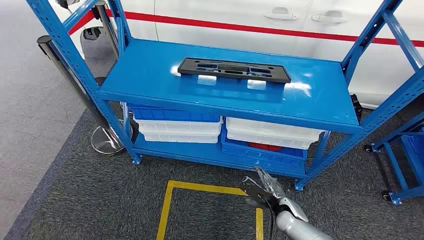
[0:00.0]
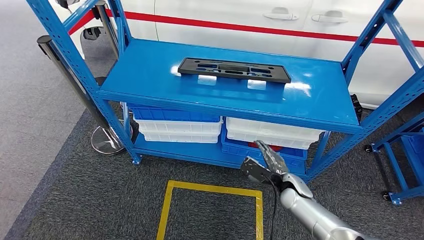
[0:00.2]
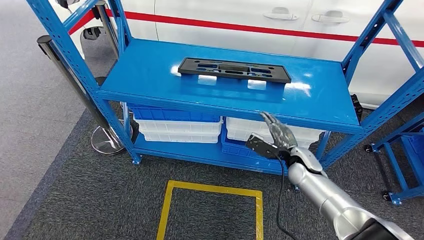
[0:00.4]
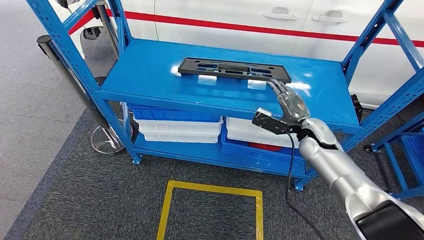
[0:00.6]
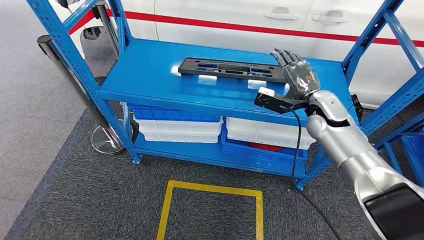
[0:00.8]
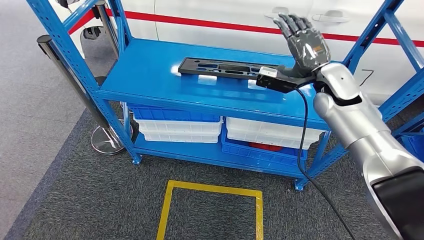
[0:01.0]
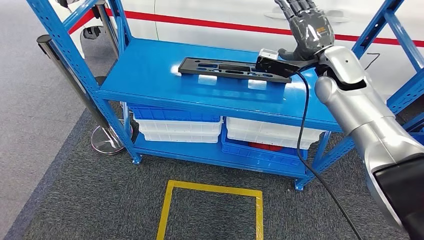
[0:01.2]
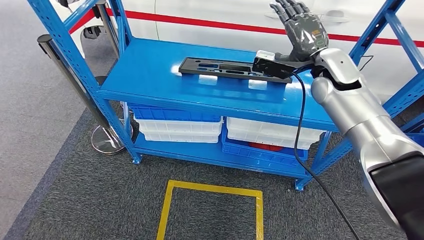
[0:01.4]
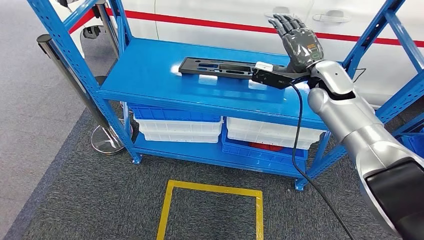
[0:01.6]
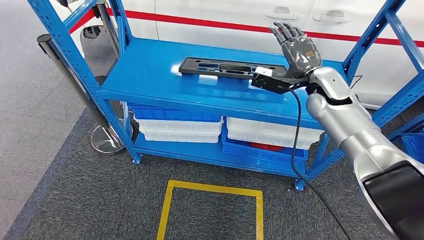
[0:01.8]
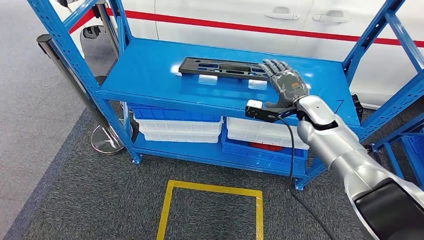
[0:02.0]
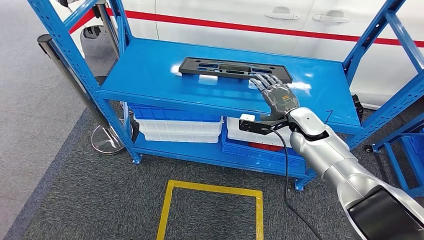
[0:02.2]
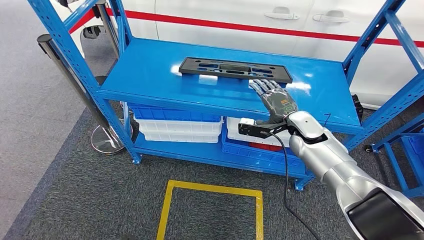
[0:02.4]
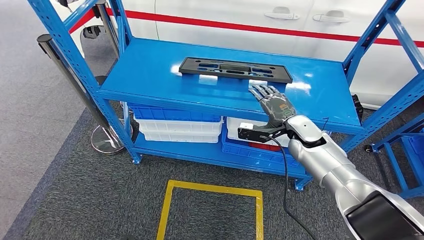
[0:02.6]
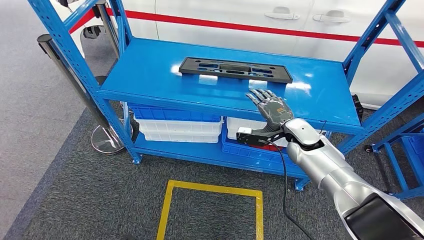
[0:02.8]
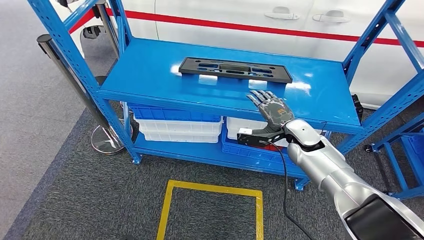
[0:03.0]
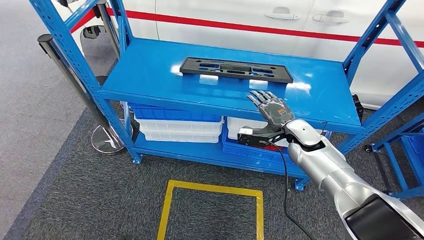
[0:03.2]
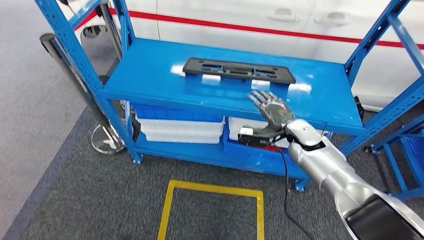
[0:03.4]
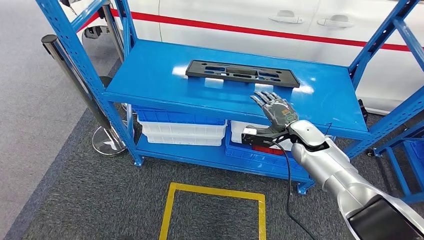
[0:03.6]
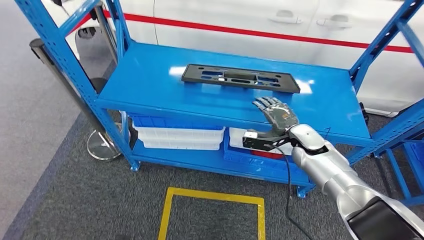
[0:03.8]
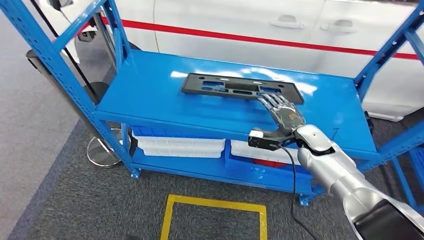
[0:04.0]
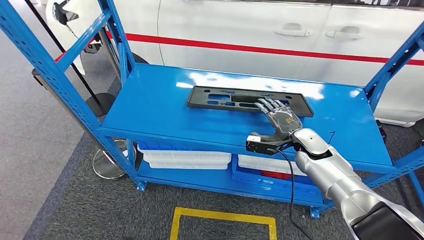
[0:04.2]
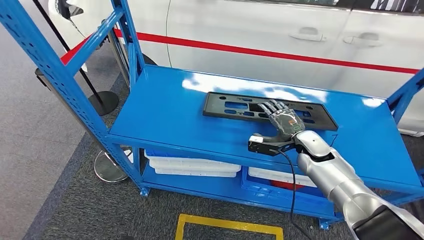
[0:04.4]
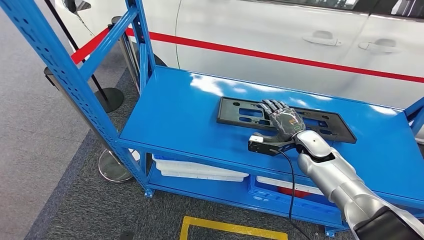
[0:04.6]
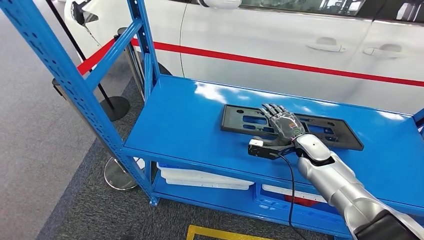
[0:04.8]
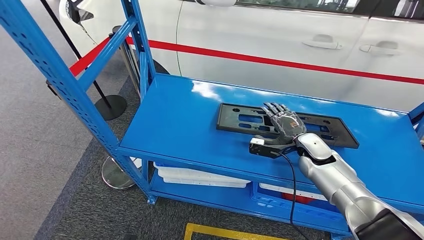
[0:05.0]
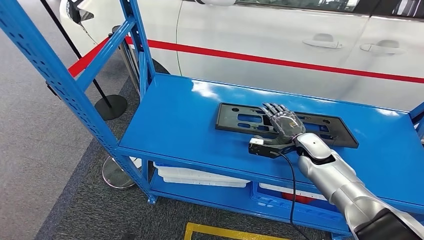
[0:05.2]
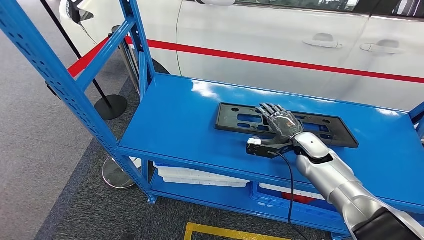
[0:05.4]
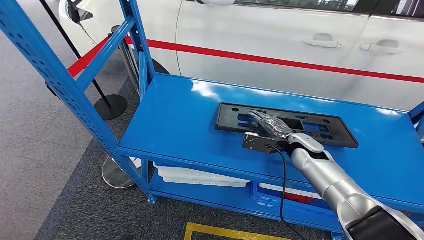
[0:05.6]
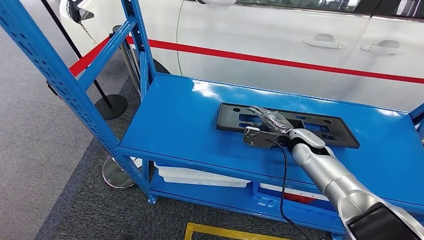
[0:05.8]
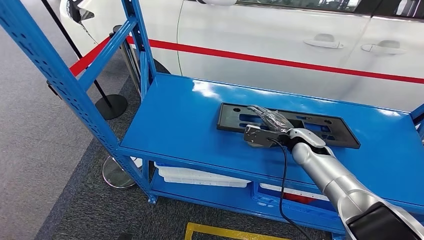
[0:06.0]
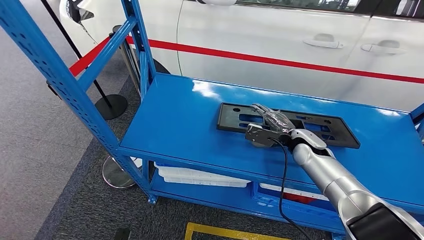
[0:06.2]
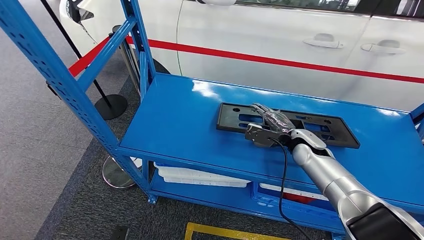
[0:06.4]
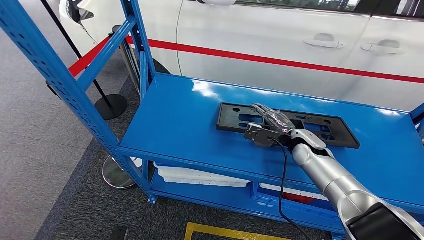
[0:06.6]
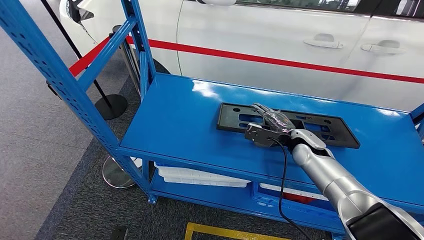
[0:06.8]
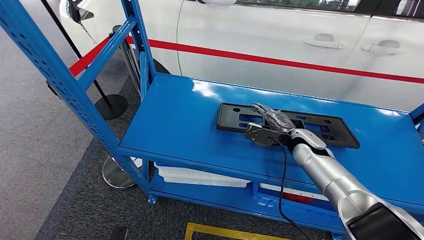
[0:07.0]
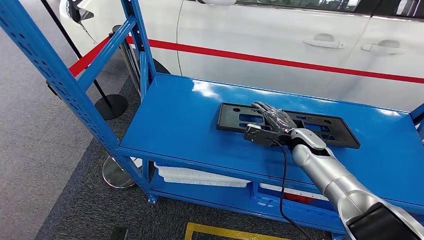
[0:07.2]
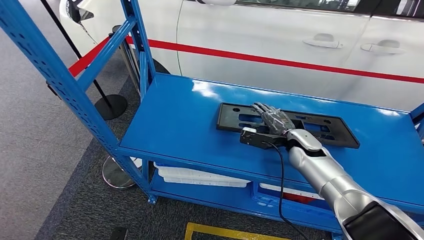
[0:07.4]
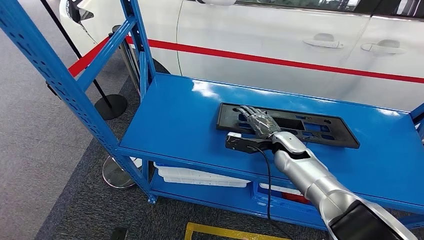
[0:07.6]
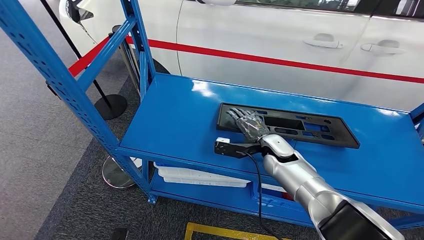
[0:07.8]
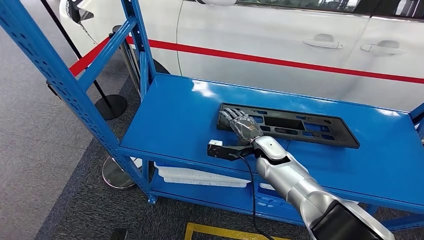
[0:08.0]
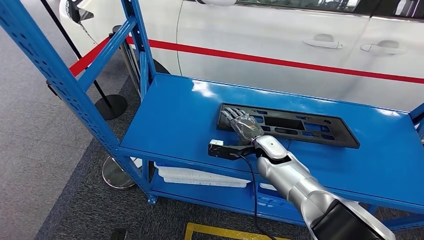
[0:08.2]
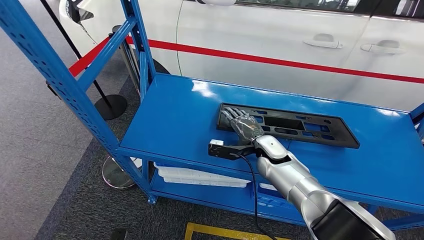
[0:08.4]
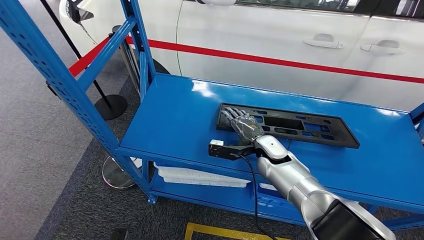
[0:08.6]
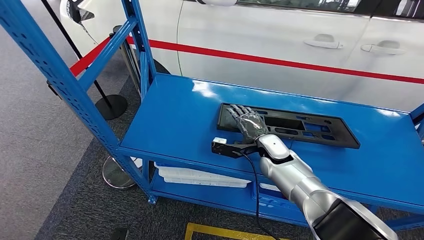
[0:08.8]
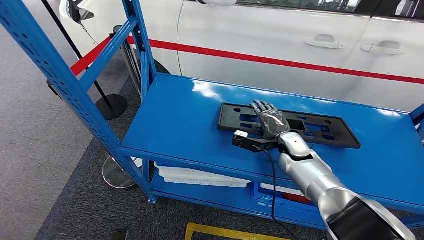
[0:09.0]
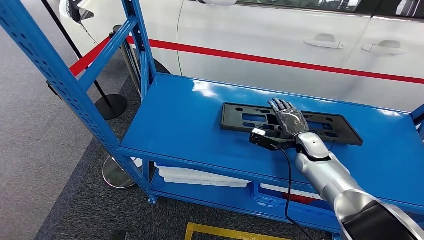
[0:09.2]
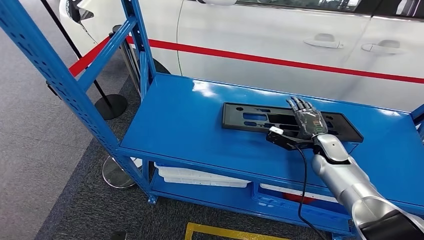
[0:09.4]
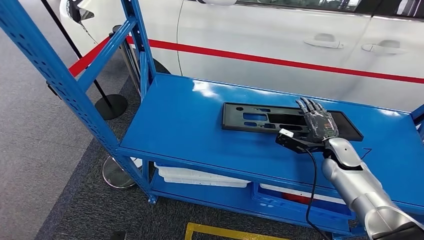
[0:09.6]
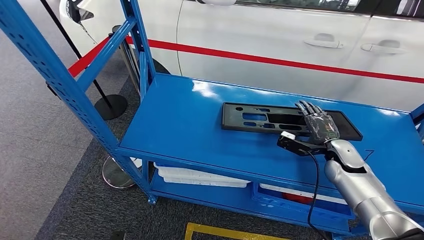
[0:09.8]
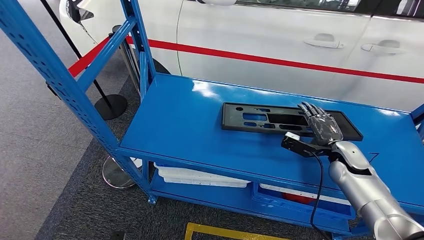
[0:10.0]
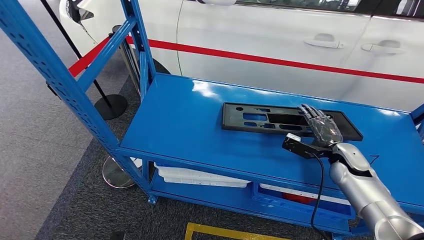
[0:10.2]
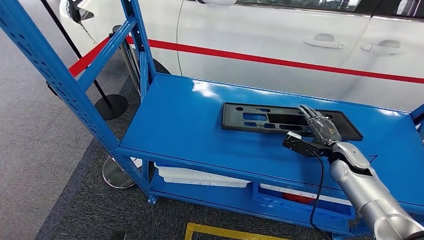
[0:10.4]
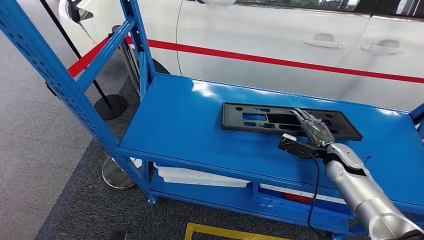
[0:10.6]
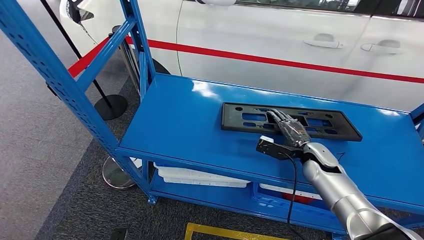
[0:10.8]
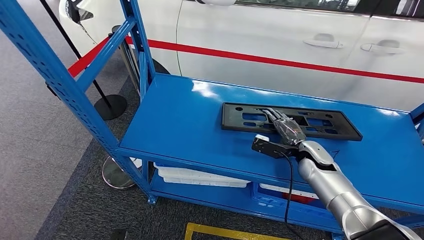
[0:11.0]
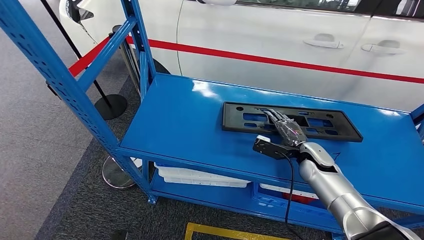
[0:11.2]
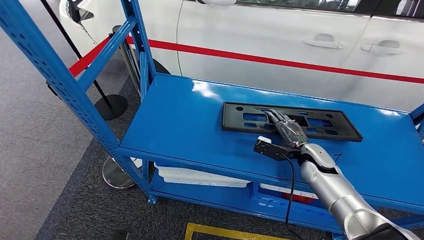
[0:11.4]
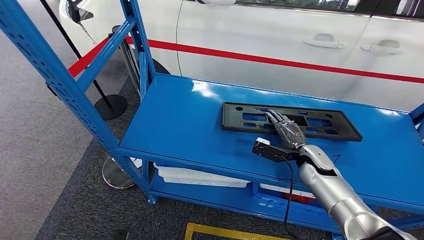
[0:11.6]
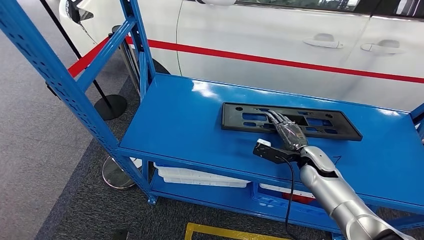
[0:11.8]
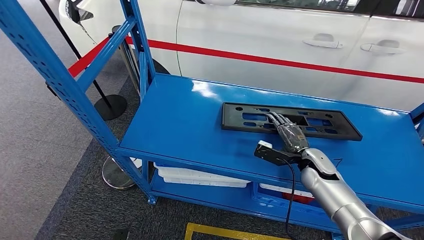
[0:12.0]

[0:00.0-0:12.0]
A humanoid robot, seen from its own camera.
0:01.6 to 0:03.0: The right hand goes about 15 cm downward.
0:06.0 to 0:07.6: The right hand ends up about 5 cm from where it was.
0:07.6 to 0:09.0: The hands move only a little.
0:09.0 to 0:10.4: The right hand shifts approximately 15 cm to the right.
0:10.4 to 0:12.0: The right hand shifts approximately 10 cm to the left.

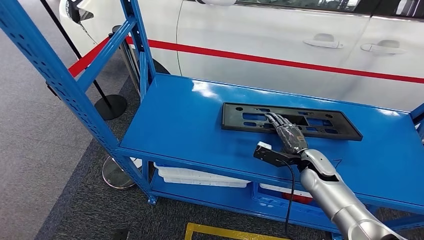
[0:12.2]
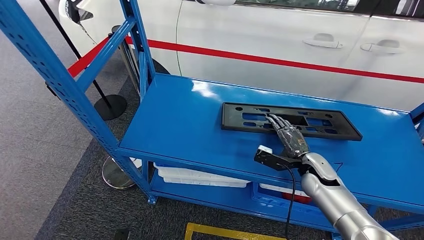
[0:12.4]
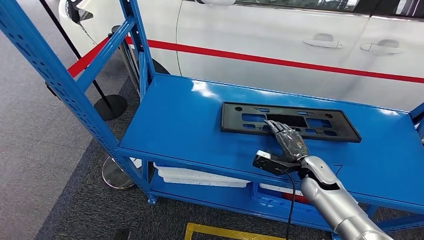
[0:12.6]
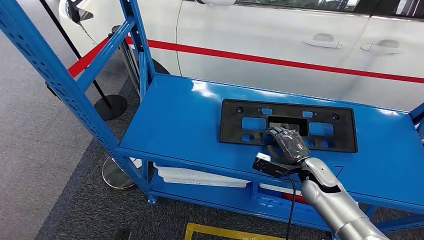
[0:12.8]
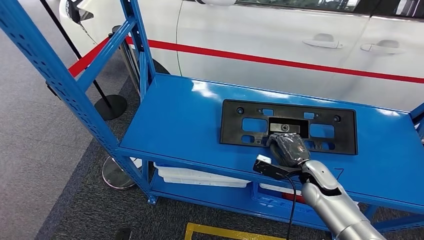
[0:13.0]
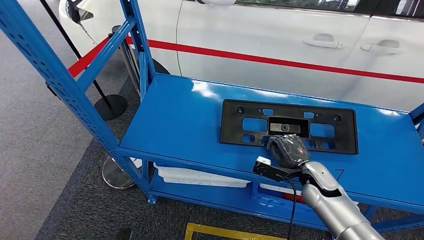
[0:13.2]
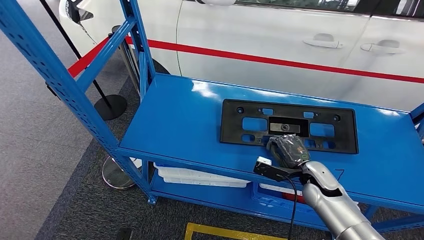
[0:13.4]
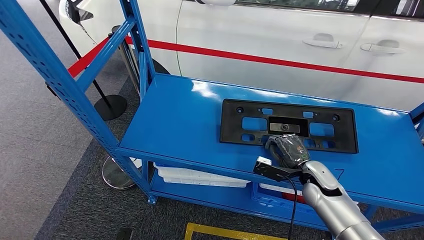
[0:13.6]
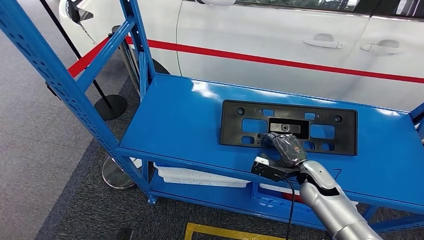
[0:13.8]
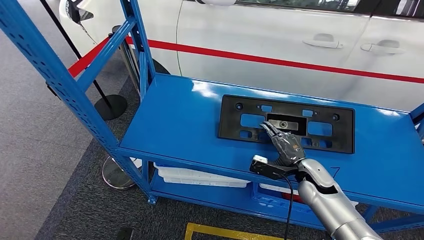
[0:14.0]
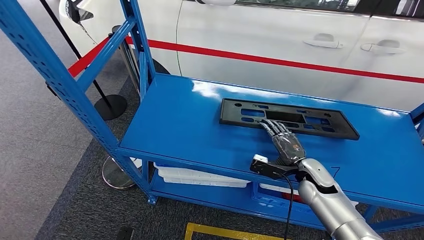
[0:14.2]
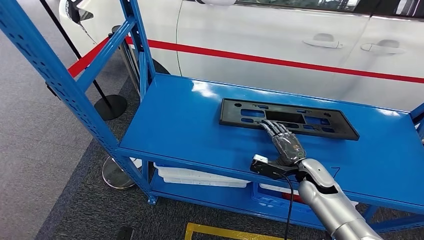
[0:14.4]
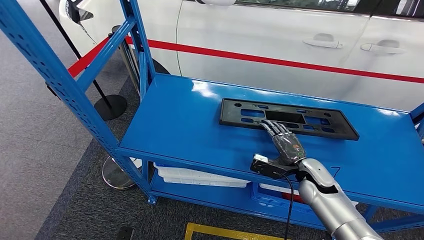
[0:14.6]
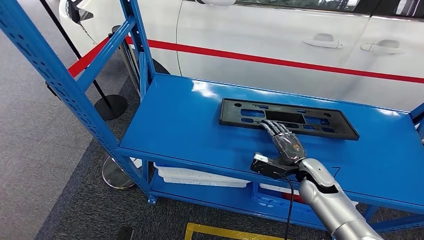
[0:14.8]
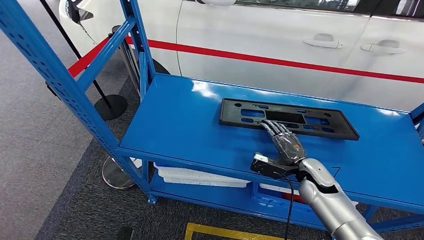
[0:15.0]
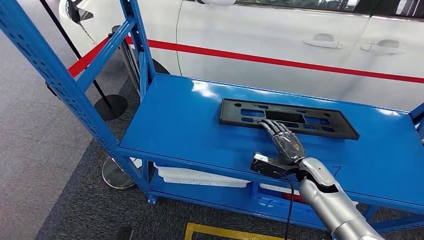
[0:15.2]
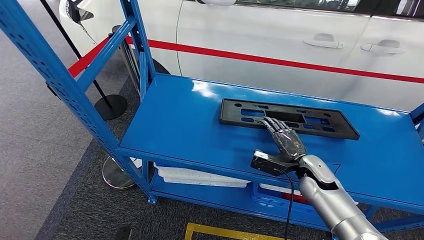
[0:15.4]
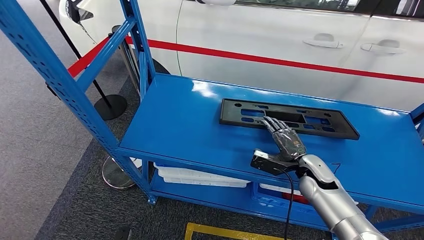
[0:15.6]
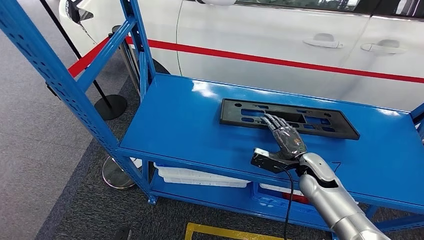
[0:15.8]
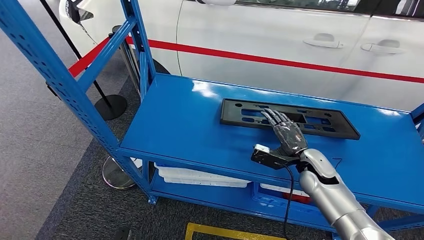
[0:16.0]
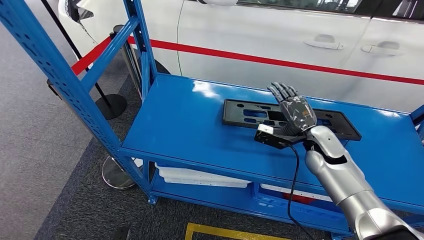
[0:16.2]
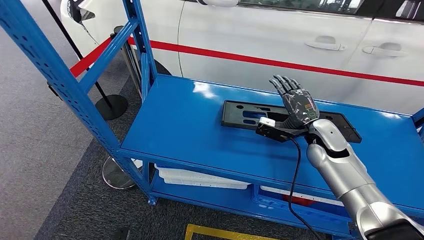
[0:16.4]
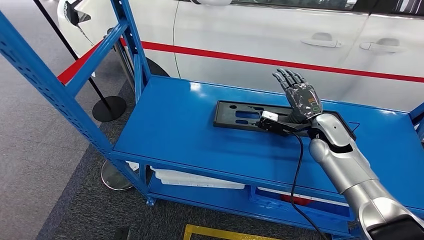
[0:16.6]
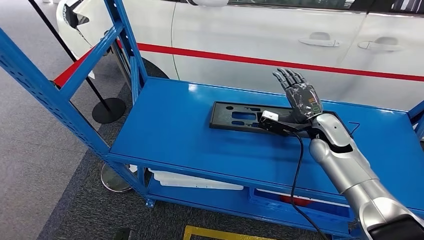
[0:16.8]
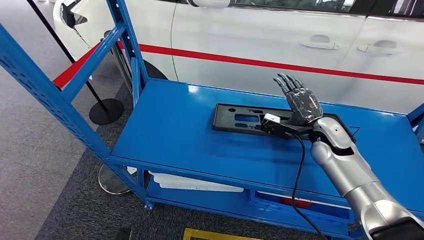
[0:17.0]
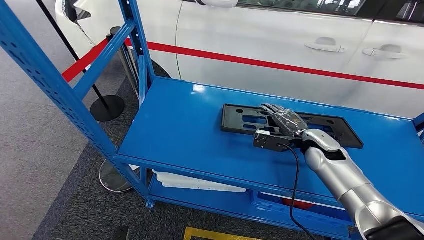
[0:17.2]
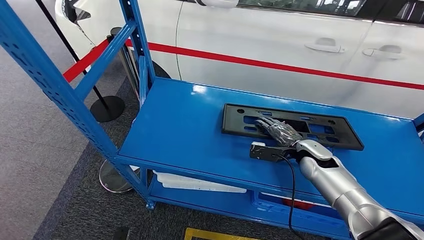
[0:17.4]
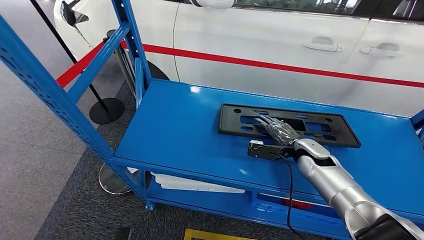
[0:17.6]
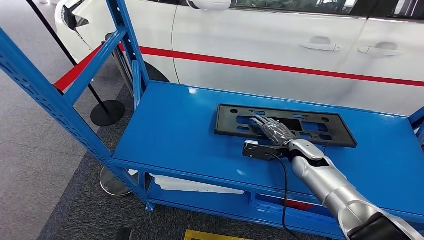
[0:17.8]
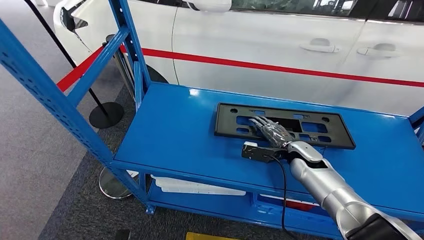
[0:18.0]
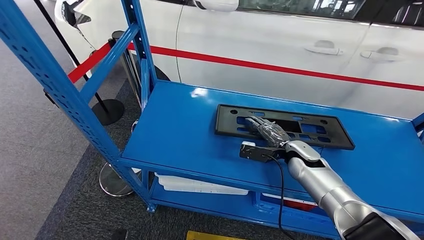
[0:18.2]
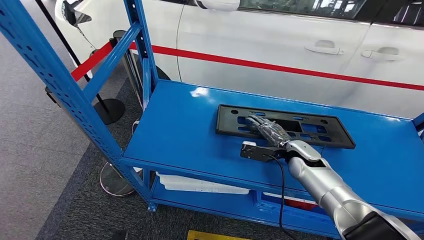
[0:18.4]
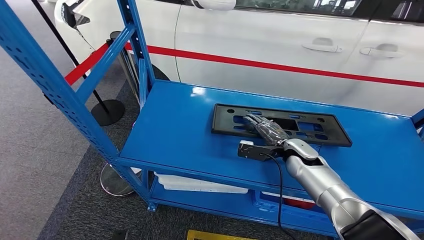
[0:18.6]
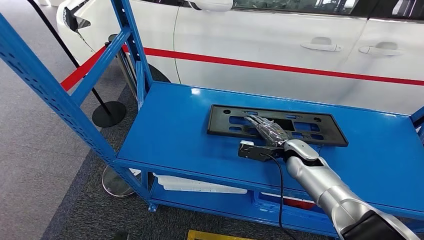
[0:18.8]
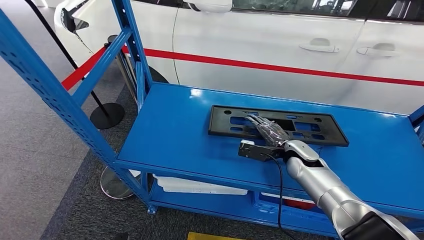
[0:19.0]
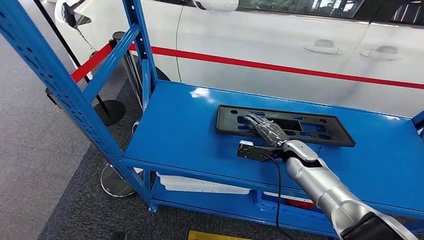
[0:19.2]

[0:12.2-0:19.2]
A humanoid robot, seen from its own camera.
0:12.2 to 0:13.6: The hands move only a little.
0:13.6 to 0:15.0: Both hands stay put.
